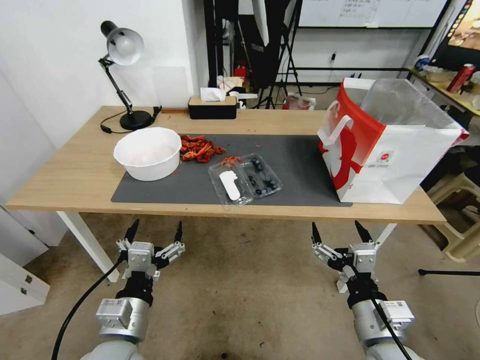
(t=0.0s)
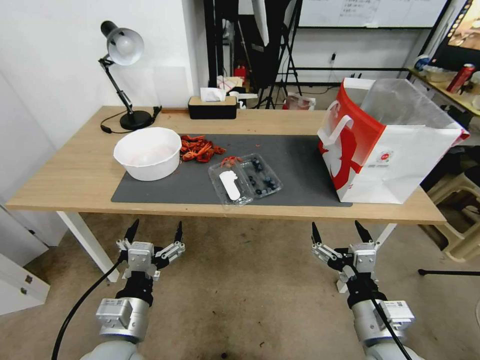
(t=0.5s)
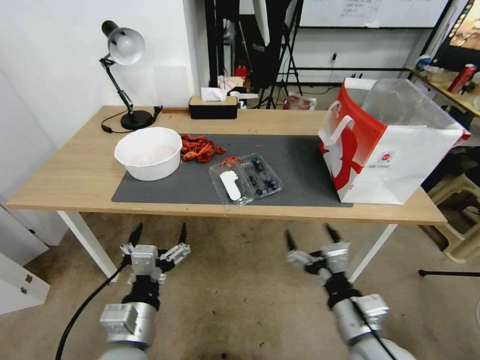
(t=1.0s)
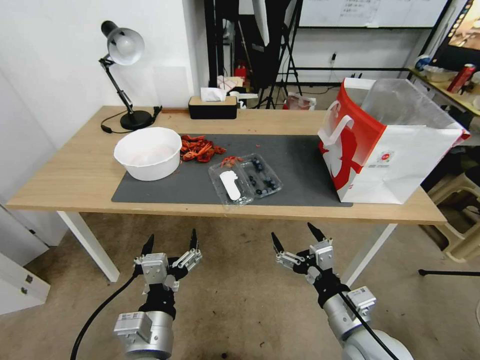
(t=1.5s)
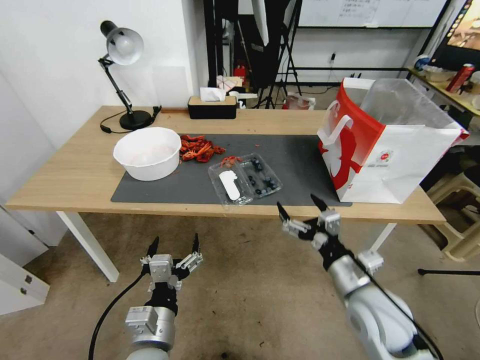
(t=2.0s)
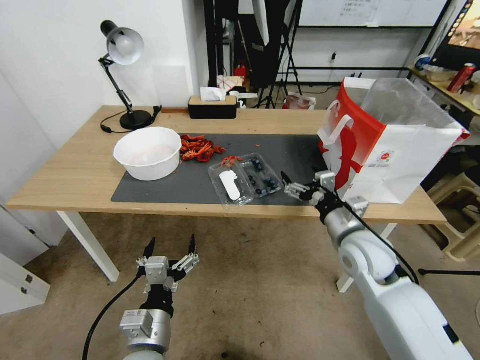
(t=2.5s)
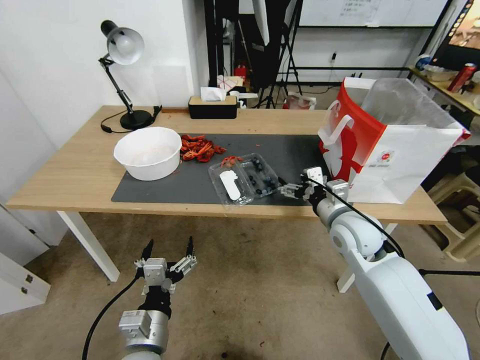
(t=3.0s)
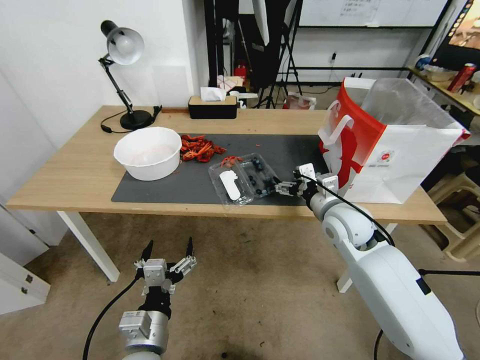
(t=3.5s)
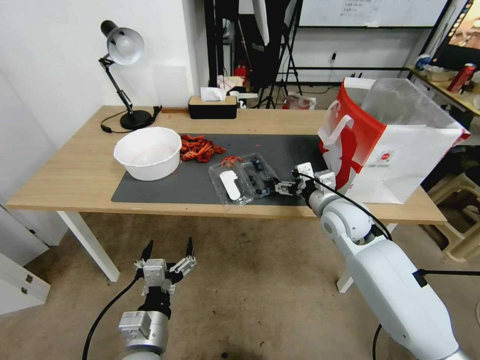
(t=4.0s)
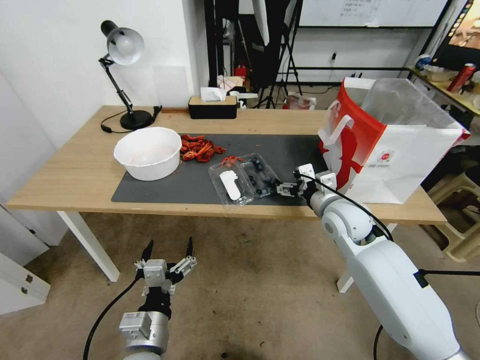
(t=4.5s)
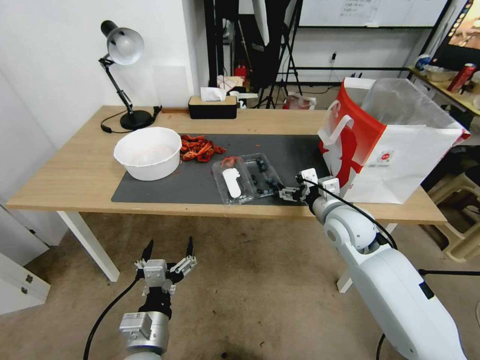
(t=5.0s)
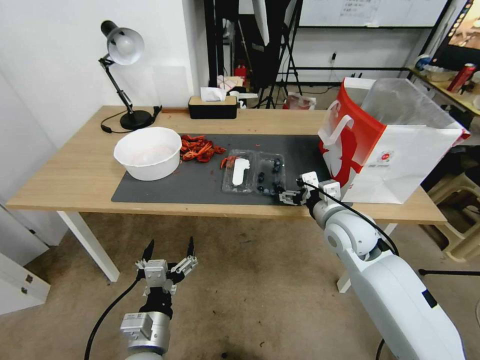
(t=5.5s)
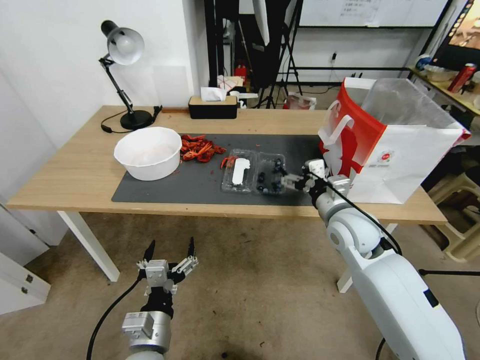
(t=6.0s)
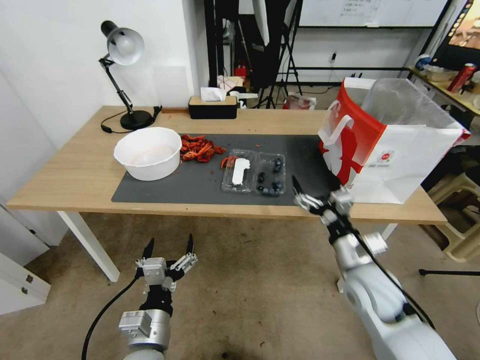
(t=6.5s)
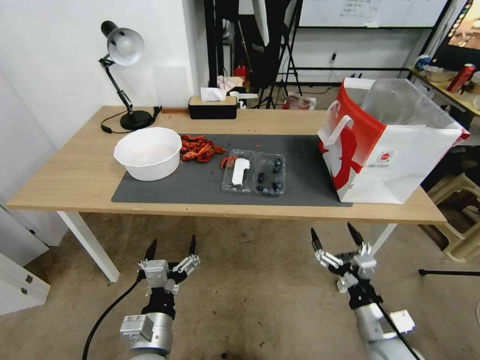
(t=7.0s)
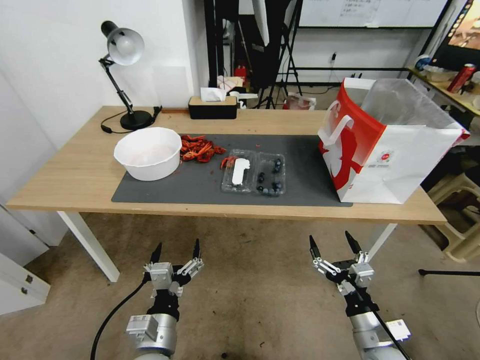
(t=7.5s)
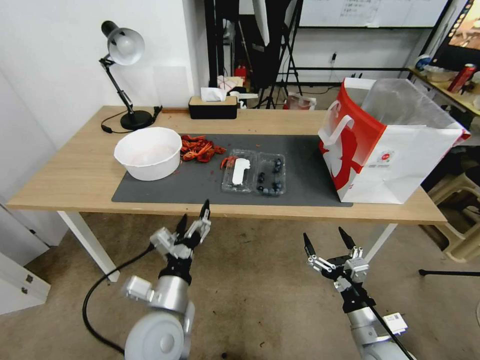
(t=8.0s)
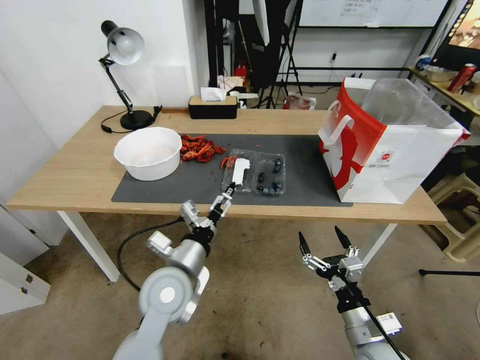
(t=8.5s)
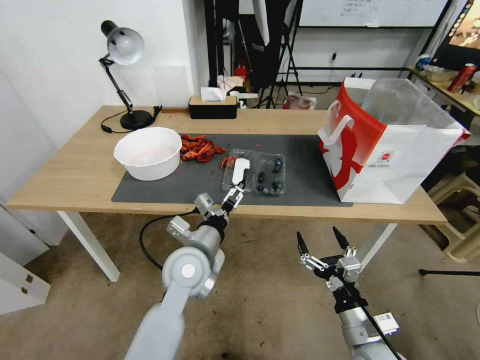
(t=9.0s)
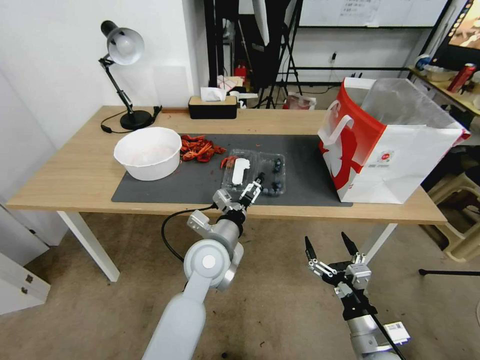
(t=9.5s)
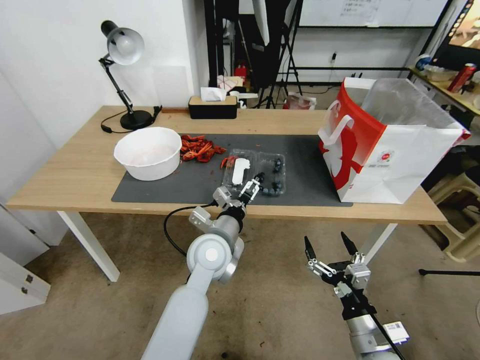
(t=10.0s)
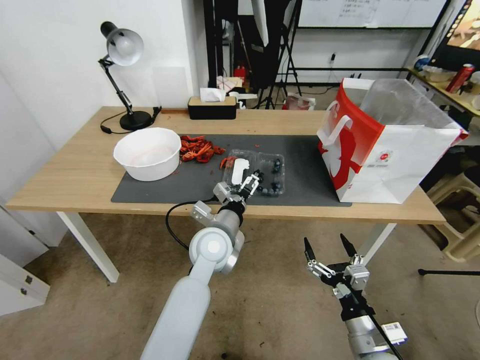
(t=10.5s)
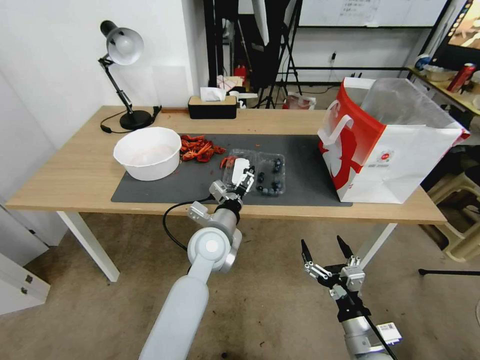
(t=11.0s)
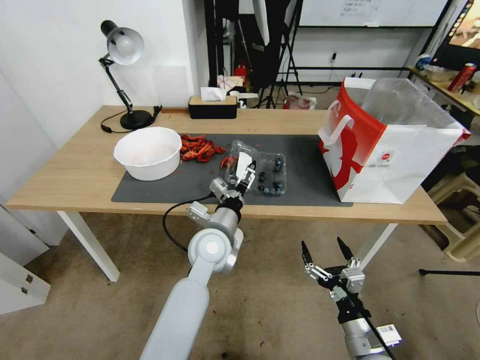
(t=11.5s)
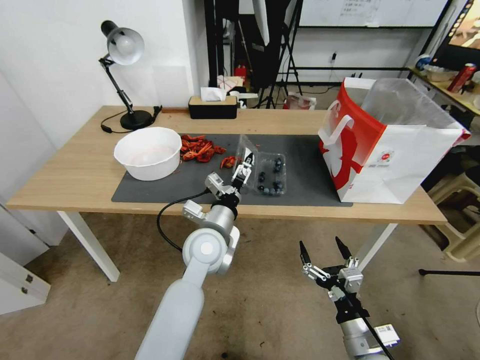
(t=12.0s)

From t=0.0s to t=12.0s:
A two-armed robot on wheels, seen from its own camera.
Task of the whole recording: Close the takeout container lid, then place the container into the takeout bag.
From t=2.0s to t=4.0s: The right gripper goes roughly 20 cm forward.
From t=4.0s to t=6.0s: The grippers move only a little.
From t=6.0s to t=8.0s: The left gripper moves forward, some 5 cm, while the right gripper heads backward and downward, covering some 25 cm.
From t=8.0s to t=10.0s: The left gripper shifts approximately 15 cm forward and to the right.
From t=10.0s to t=12.0s: The grippers stay close to where they were, moving slightly.

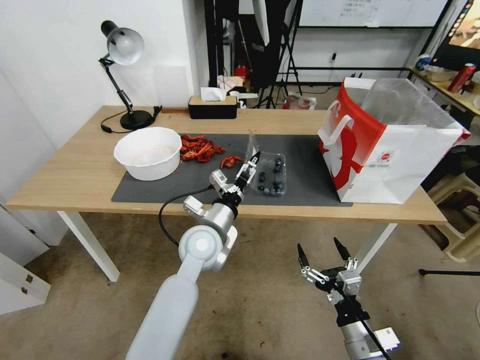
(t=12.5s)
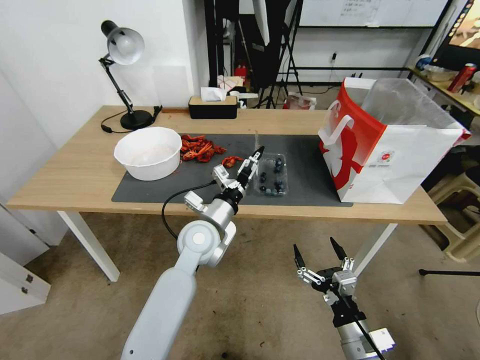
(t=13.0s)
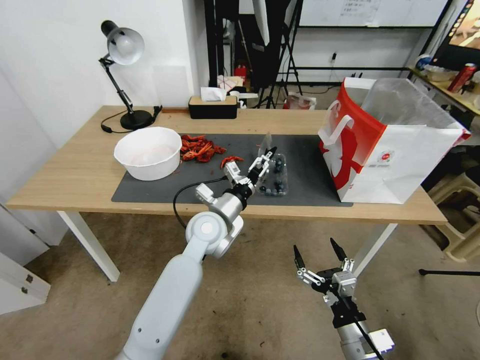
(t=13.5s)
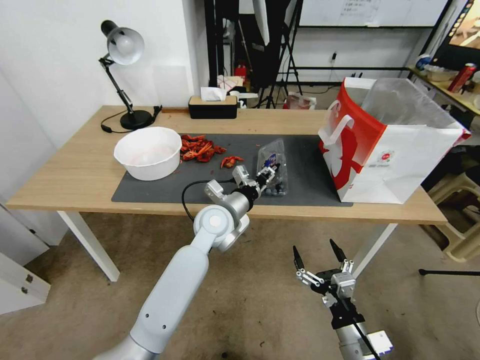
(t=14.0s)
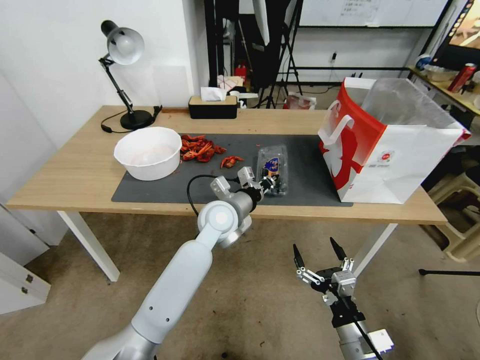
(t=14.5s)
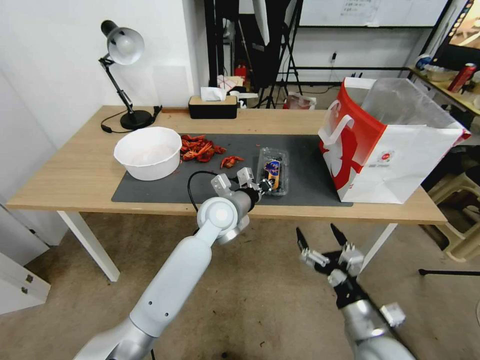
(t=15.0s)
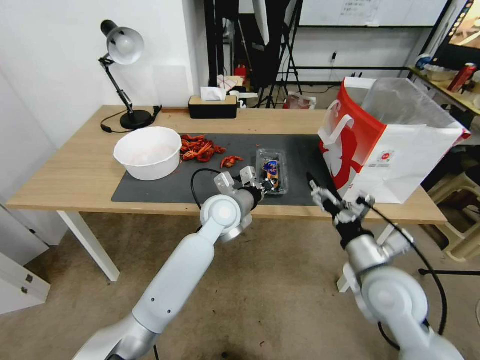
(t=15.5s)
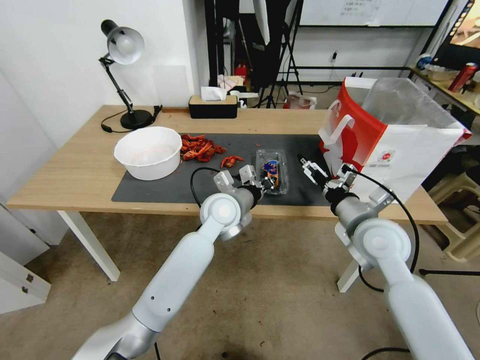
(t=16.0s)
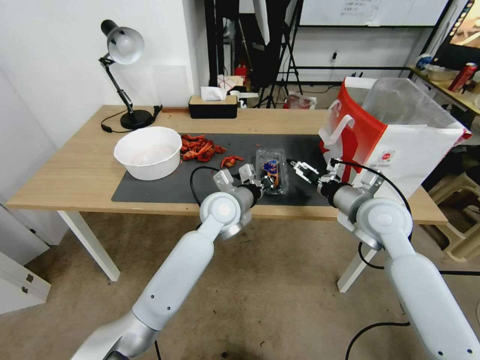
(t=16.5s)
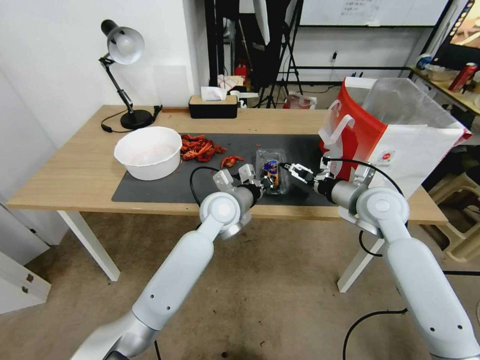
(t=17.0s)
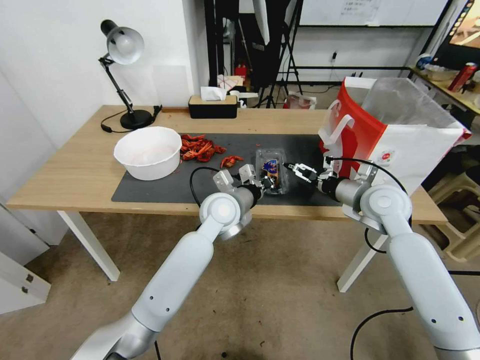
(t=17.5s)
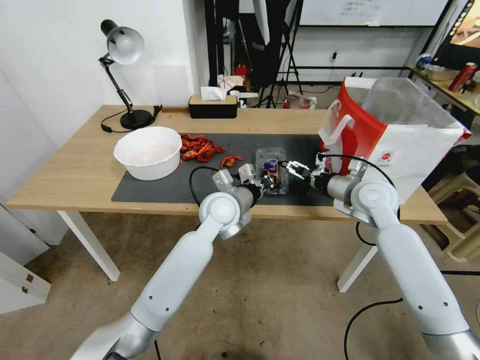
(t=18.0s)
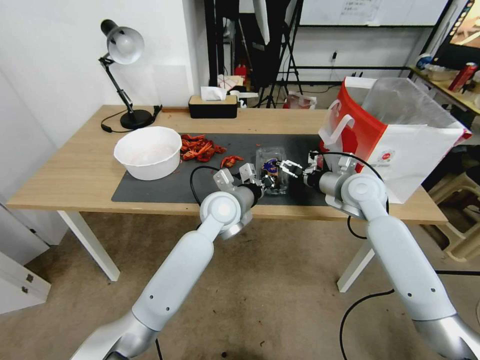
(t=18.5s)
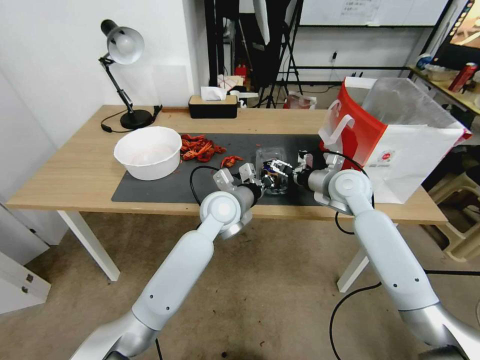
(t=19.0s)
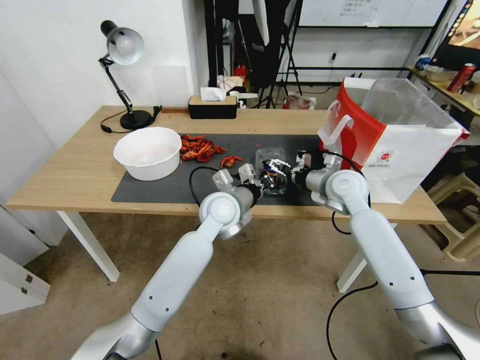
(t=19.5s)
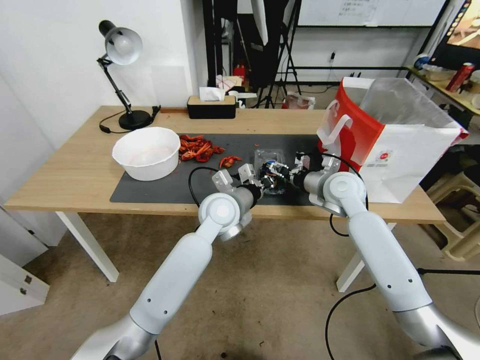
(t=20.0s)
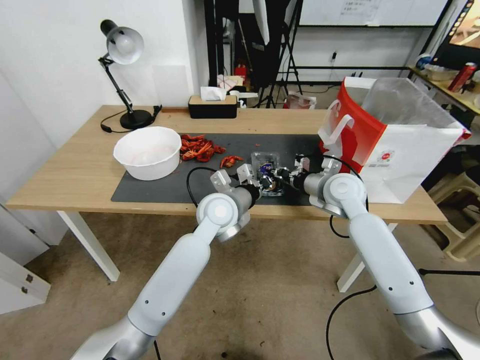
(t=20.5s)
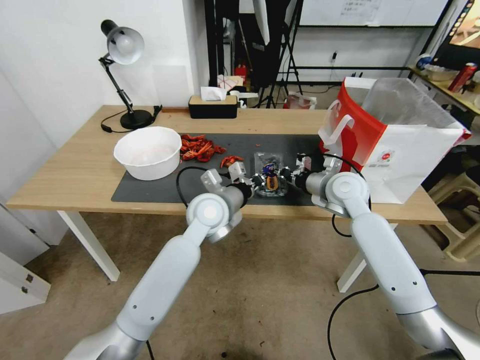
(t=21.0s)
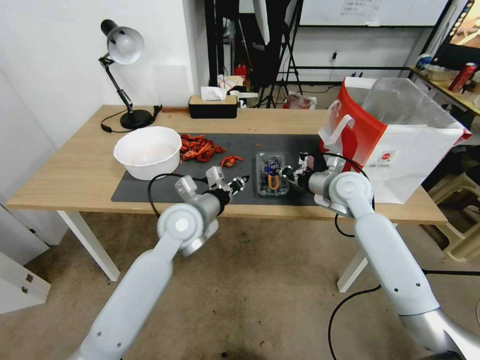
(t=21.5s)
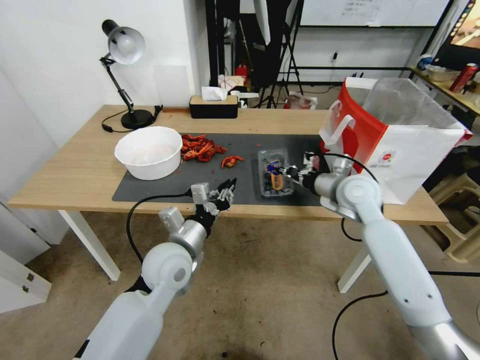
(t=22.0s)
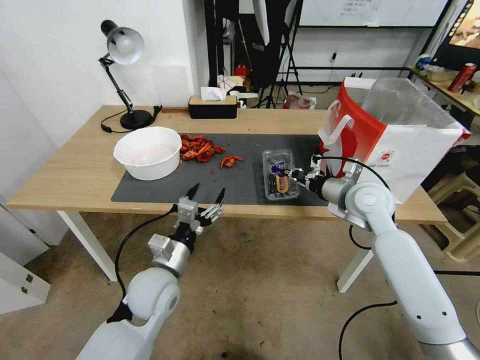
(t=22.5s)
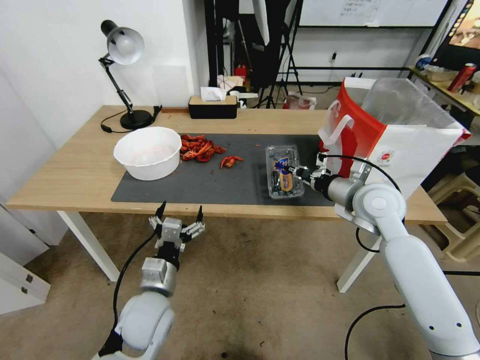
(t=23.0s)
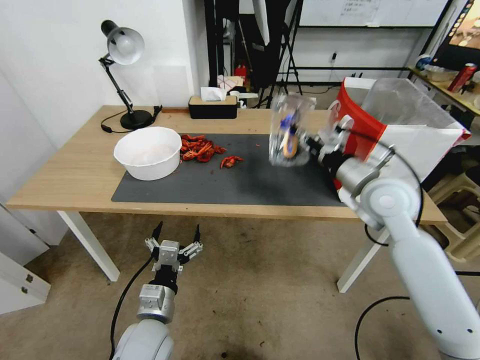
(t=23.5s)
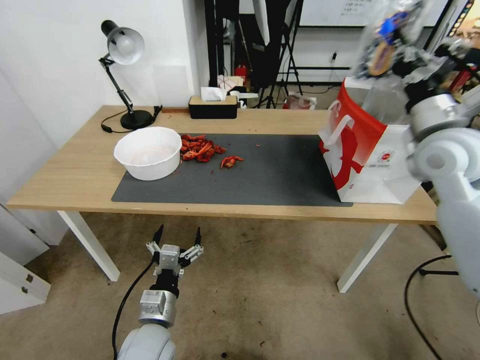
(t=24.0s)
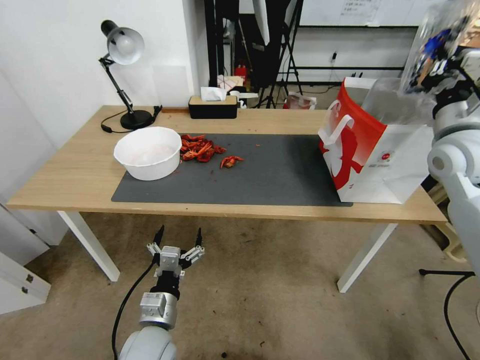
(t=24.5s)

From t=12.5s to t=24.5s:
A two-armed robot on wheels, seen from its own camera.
Task of the whole recording: Close the takeout container lid, then place the container into the takeout bag.
From t=12.5s to t=14.5s: The left gripper moves forward, roughly 5 cm, and closes up.
From t=14.5s to t=16.5s: The right gripper shifts roughly 30 cm forward and upward.
From t=16.5s to t=18.5s: The right gripper travels forward by some 10 cm.
From t=18.5s to t=20.5s: The right gripper closes.
From t=20.5s to t=22.5s: The left gripper goes approximately 20 cm backward, to the left and downward, and opens; the right gripper moves about 5 cm.
From t=22.5s to t=24.5s: The right gripper travels upward and to the right by some 15 cm. Meanwhile the left gripper shifts approximately 10 cm backward and downward.

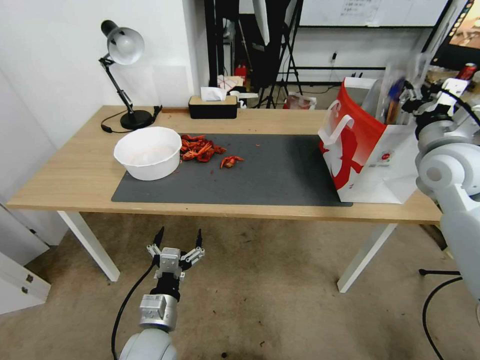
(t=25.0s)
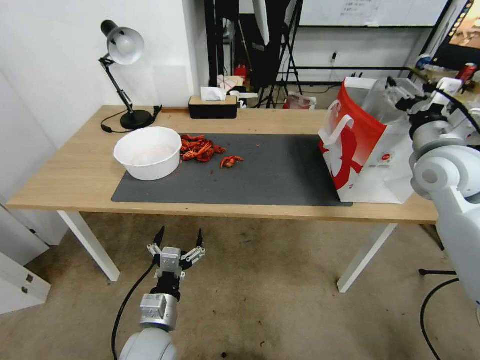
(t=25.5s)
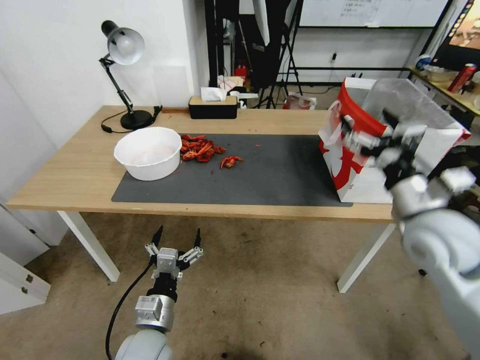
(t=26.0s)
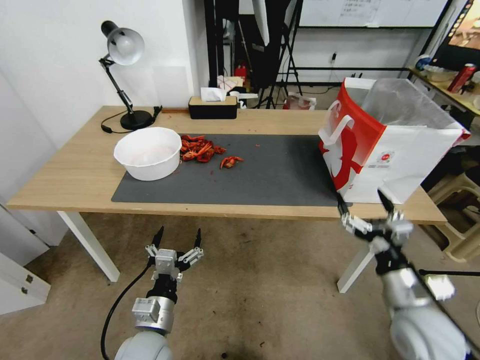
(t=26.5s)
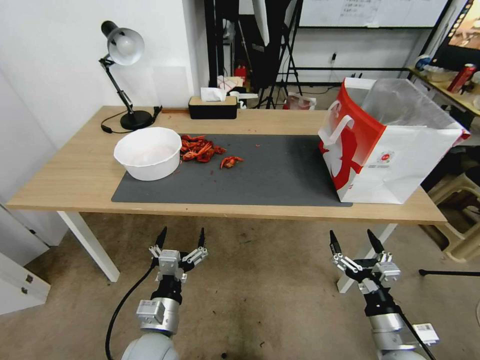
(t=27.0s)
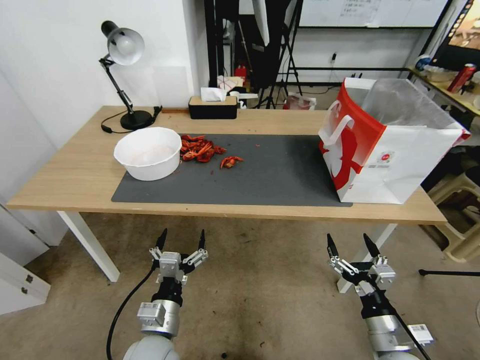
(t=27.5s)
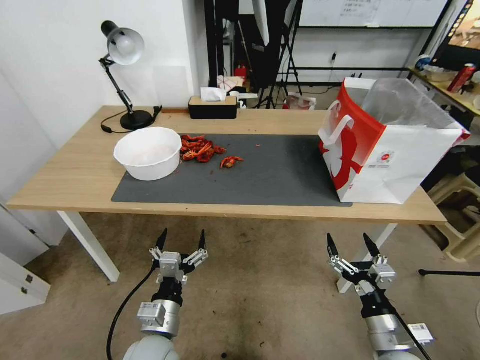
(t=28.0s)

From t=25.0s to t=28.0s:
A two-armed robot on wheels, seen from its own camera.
Task of the whole recording: Close the takeout container lid, then place the container into the takeout bag.
From t=25.0s to t=26.5s: The right gripper shifts roughly 30 cm downward and backward, and opens.
From t=26.5s to t=28.0s: The right gripper shifts approximately 10 cm downward and backward.
